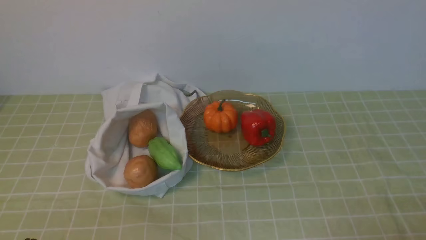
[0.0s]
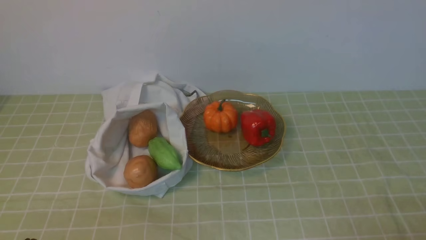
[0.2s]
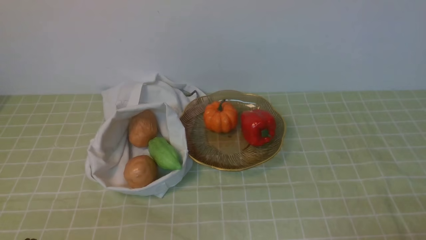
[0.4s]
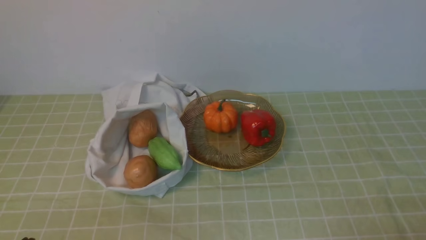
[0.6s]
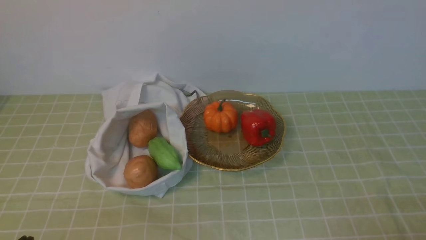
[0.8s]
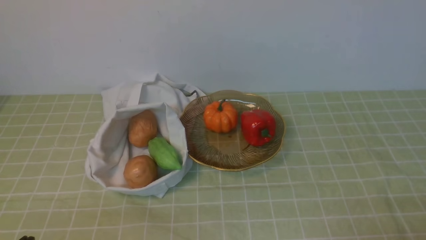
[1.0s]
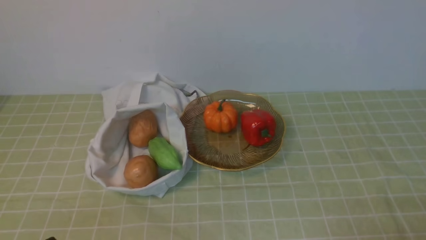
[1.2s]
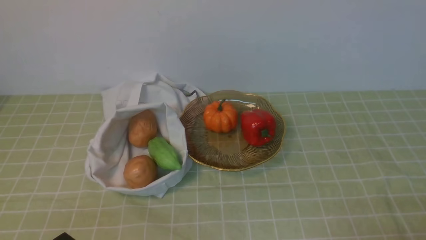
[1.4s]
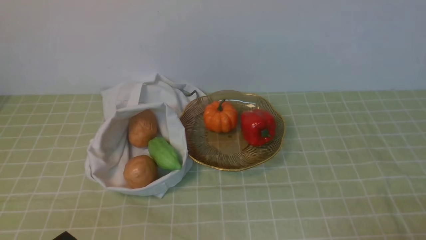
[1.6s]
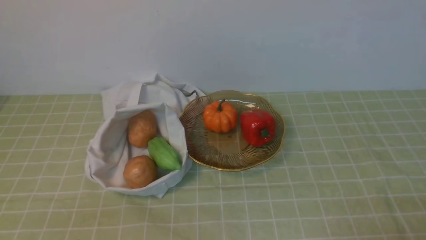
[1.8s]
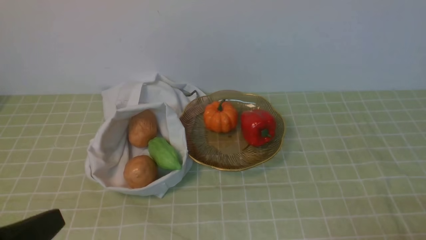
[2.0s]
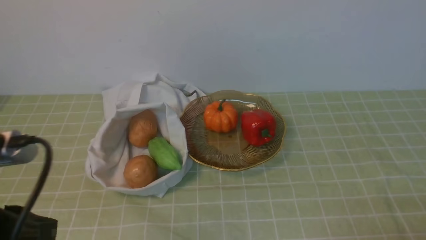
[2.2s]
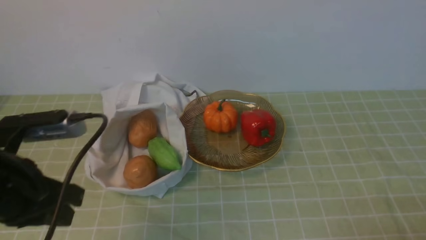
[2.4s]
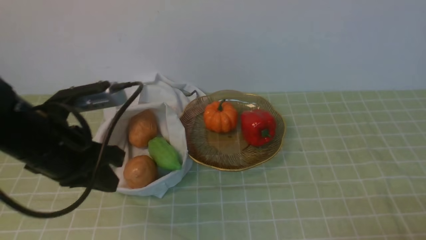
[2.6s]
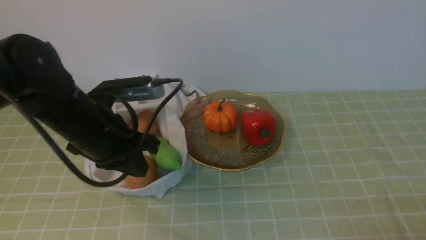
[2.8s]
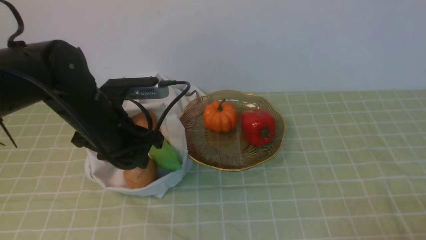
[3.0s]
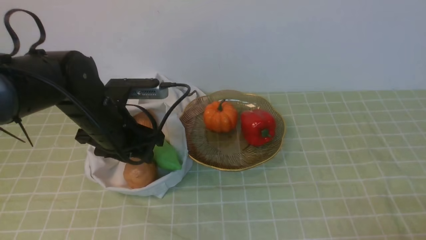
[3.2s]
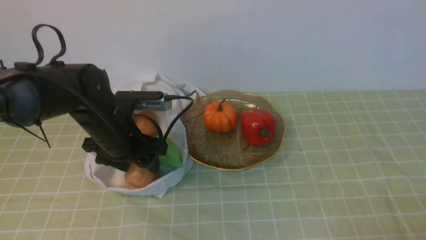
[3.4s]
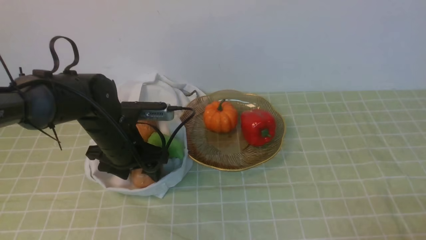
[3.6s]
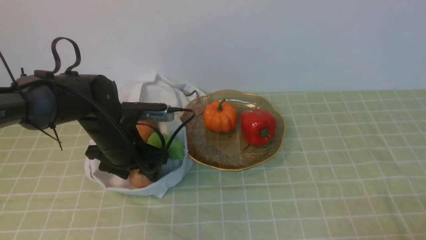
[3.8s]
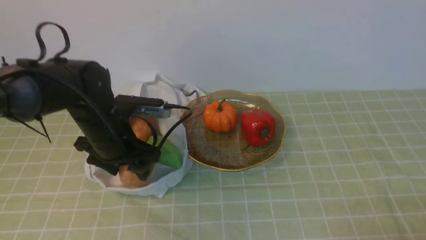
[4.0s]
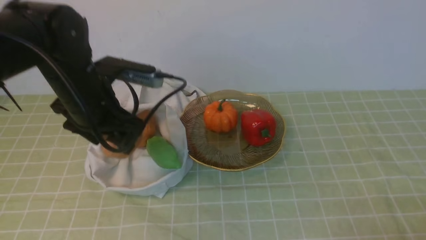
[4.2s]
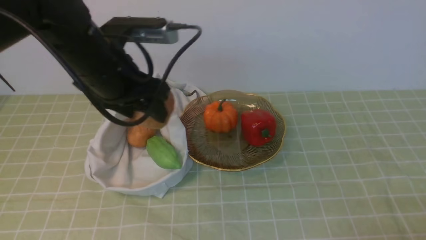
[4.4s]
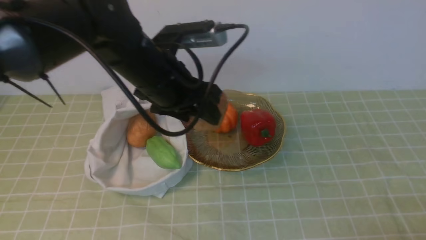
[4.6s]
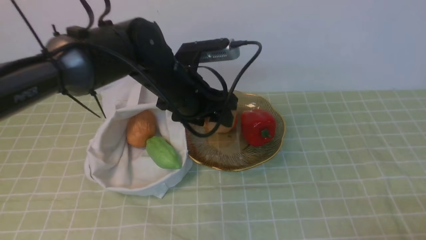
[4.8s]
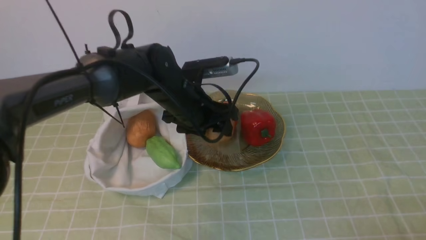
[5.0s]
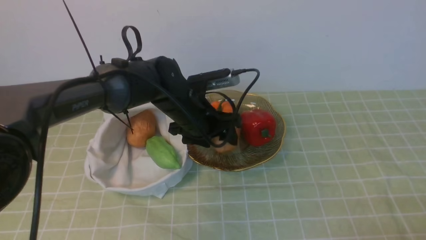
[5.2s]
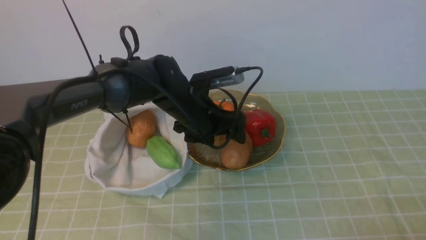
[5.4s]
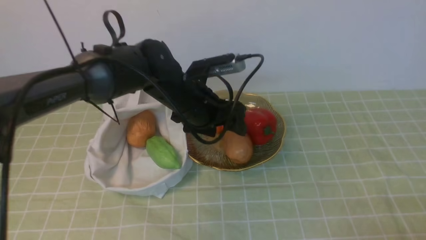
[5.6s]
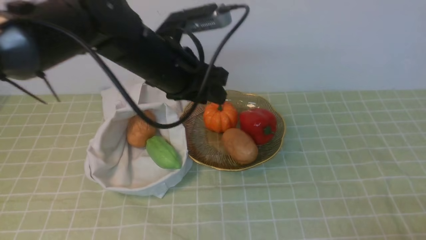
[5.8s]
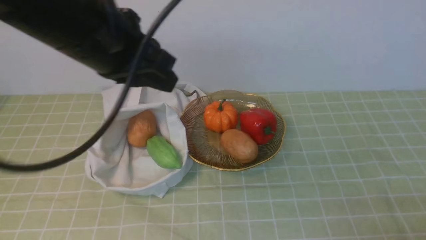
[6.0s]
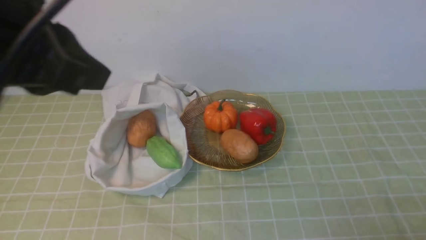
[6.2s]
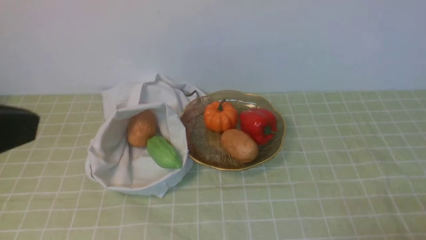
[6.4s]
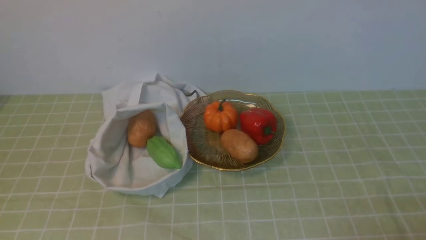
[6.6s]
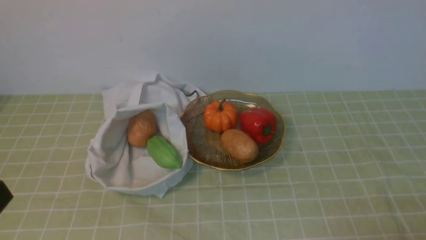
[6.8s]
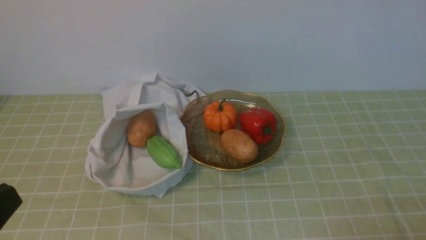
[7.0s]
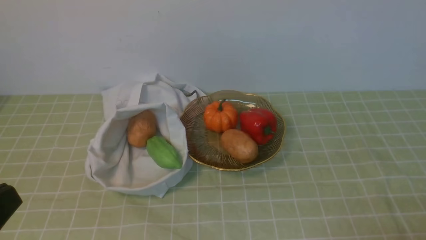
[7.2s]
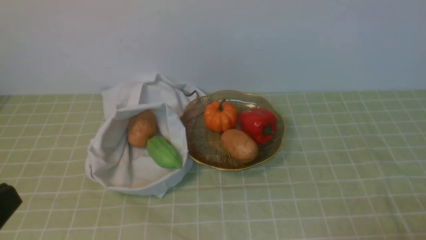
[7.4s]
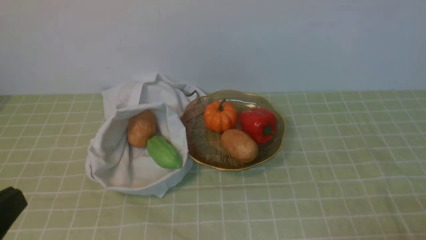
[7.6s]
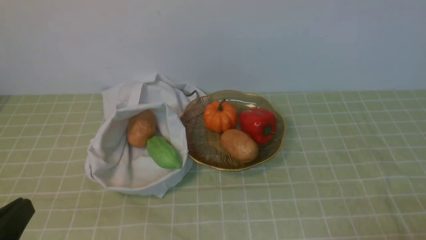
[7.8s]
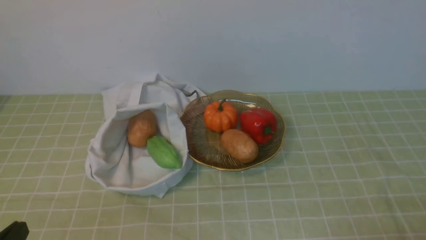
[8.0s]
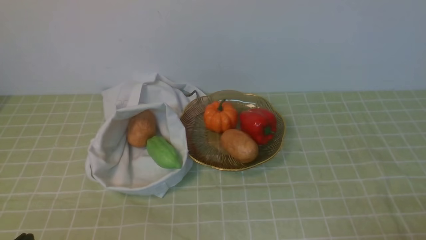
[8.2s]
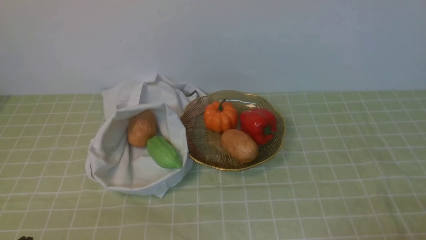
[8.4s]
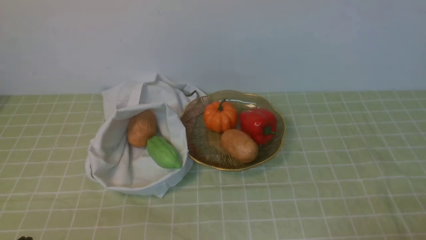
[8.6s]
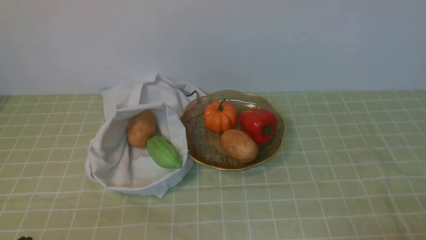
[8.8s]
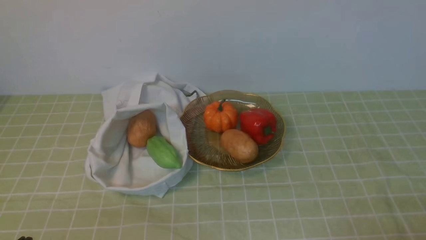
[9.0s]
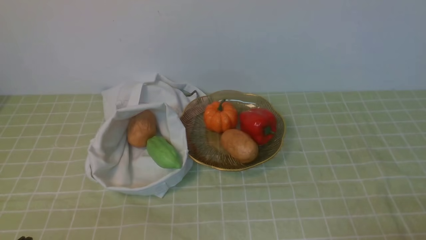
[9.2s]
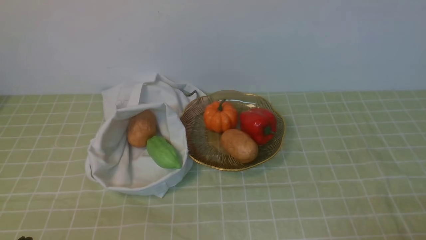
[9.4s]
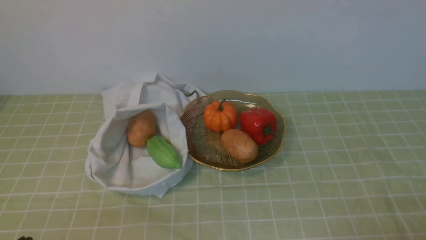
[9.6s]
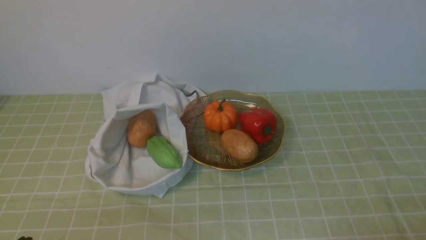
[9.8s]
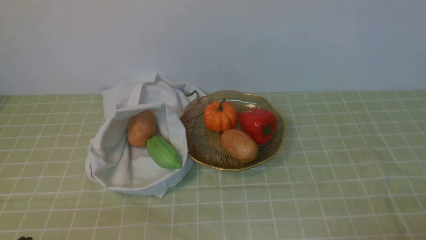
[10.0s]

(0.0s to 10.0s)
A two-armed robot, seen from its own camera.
Task of the whole recording: take vegetables from bag on green coffee tablecloth place on plate.
Step, 0.0s - 3.6s: Grasp the potato with left gripper.
Step, 4.0s - 5.6s: Place the potato on the plate with left gripper.
1.4s - 2.8s: The left gripper is displaced forward by roughly 25 cm.
2.8s - 4.2s: The left gripper travels downward and back again, some 10 cm each way, and opens up.
4.2s - 5.8s: The left gripper shifts approximately 10 cm to the right and upward, and closes its fingers.
5.8s - 7.2s: The left gripper moves backward and to the left, about 35 cm, and closes its fingers.
7.2s - 8.6s: The left gripper moves downward, roughly 15 cm.
8.6s - 10.0s: Neither gripper changes place.

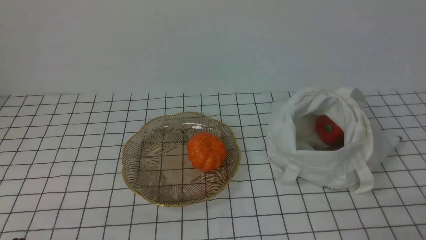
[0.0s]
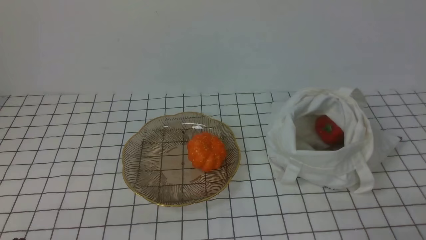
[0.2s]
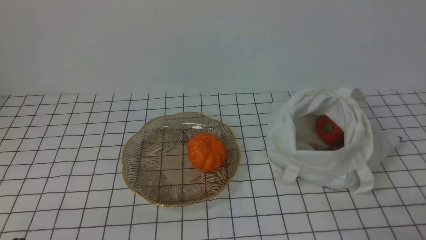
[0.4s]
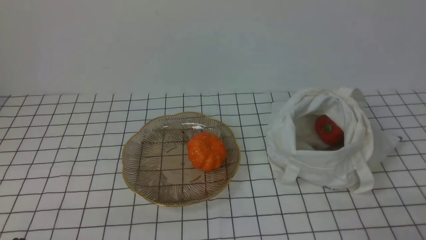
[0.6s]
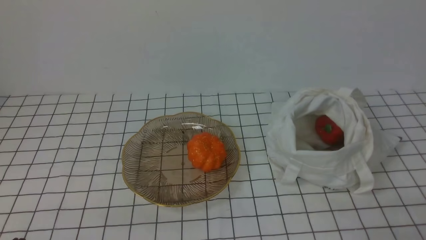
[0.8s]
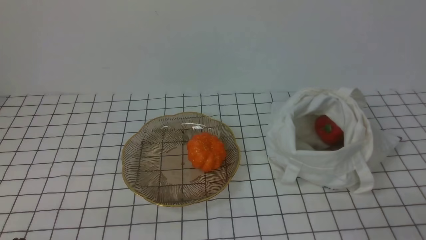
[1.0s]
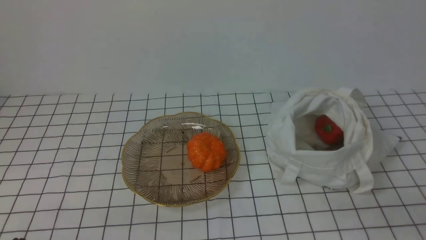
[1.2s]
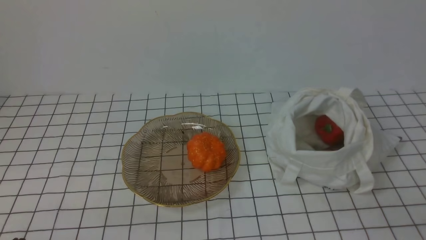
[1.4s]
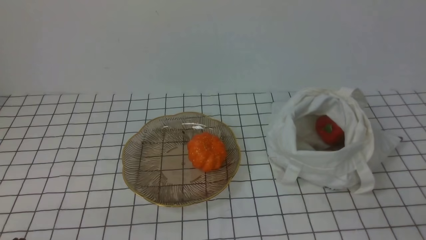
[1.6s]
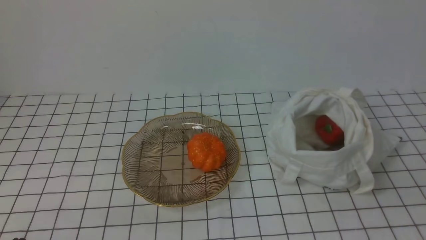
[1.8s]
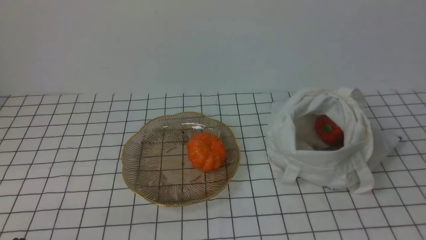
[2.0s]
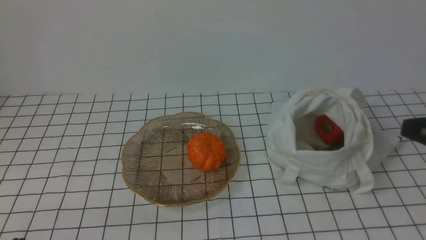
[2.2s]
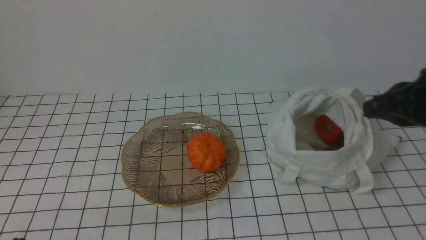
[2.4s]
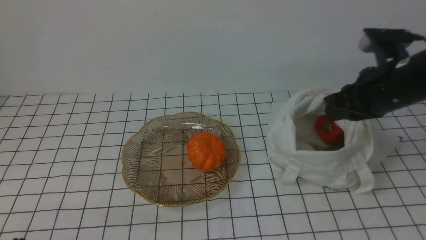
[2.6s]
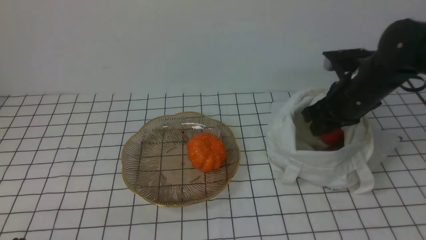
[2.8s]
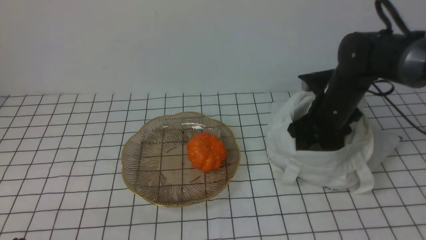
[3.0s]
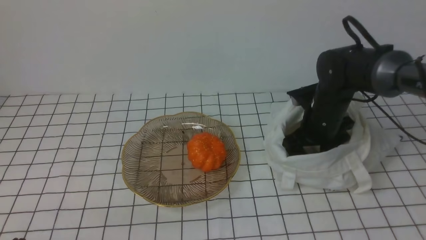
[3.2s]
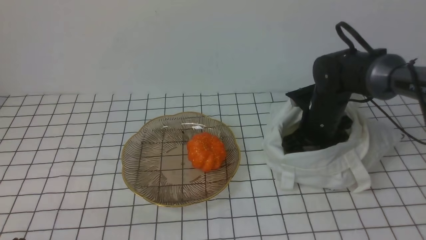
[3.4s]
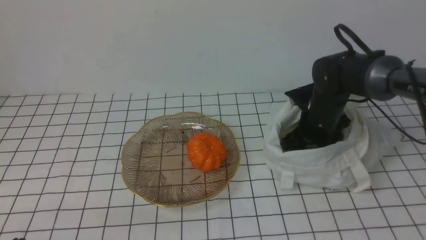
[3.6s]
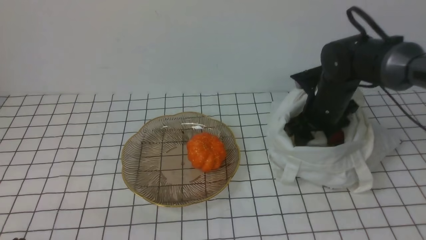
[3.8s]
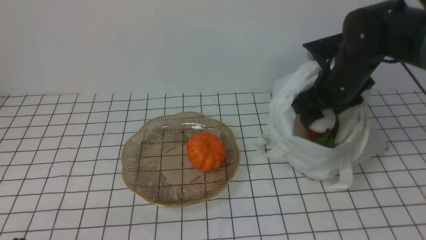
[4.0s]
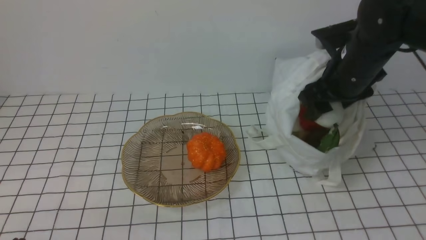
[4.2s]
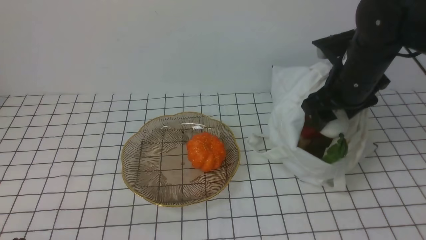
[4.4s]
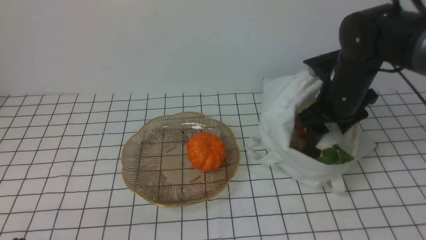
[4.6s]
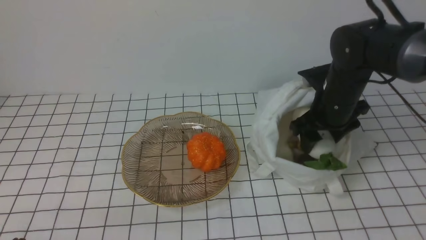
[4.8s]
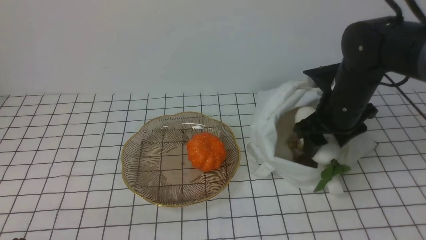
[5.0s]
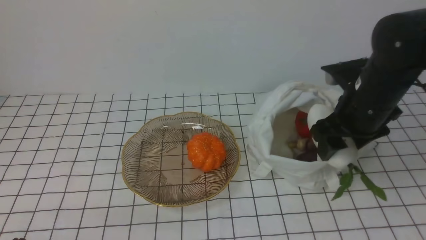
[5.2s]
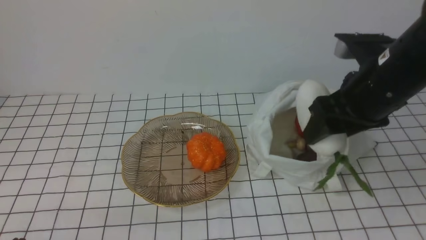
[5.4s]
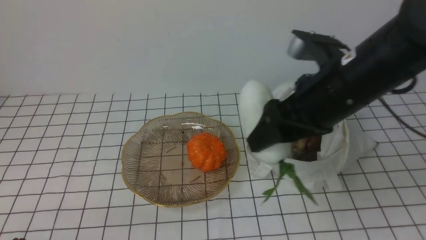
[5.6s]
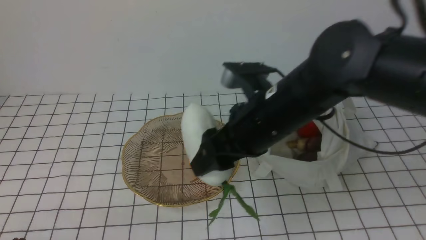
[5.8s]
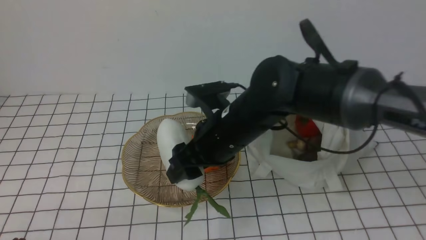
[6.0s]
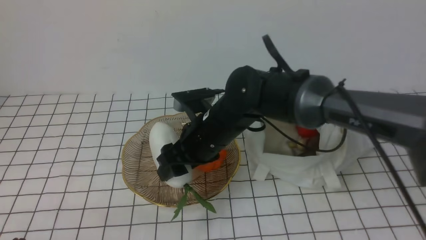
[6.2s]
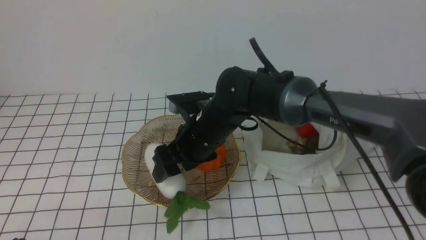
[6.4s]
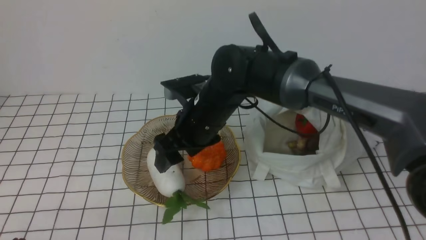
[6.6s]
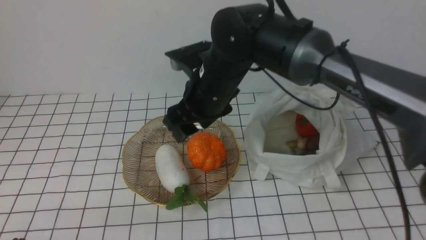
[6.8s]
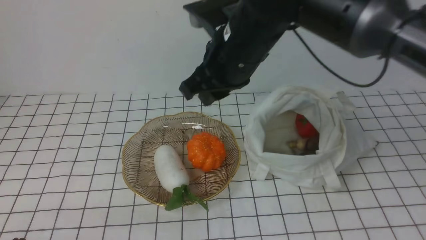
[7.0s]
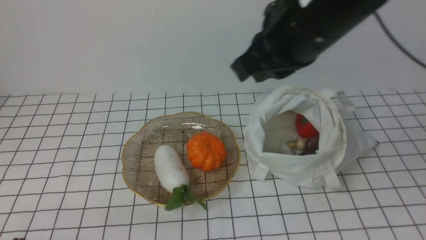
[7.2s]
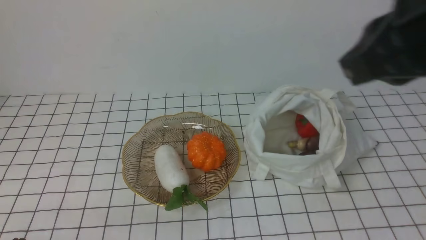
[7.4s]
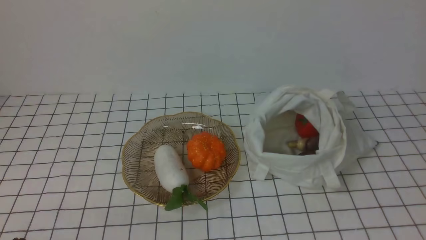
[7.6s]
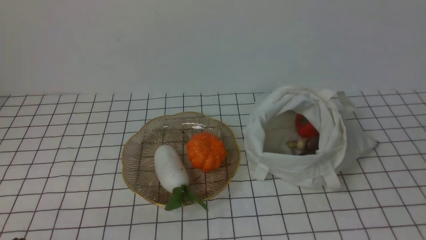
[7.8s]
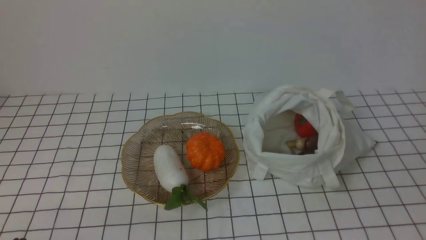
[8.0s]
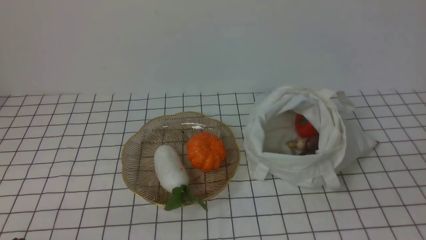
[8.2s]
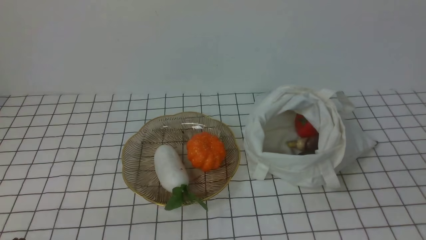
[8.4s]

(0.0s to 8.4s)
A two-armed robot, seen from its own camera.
Task of the whole recording: take vegetables from bag on white checkered tablecloth place on plate.
Step, 0.0s - 3.4s: Grasp the radish with right gripper.
Step, 3.8s - 6.6s: Place the radish on the plate with right gripper.
1.4s - 2.8s: The right gripper heads forward, covering roughly 30 cm, and opens its fingers.
2.8s - 4.2s: The right gripper reaches about 5 cm downward, then returns, and opens its fingers.
4.2s - 5.6s: The right gripper is displaced backward and to the left by approximately 10 cm.
5.6s - 7.0s: The right gripper goes approximately 10 cm to the left, reaches about 10 cm downward, then returns, and closes its fingers.
7.0s - 8.4s: The right gripper shifts approximately 40 cm backward and to the right.
